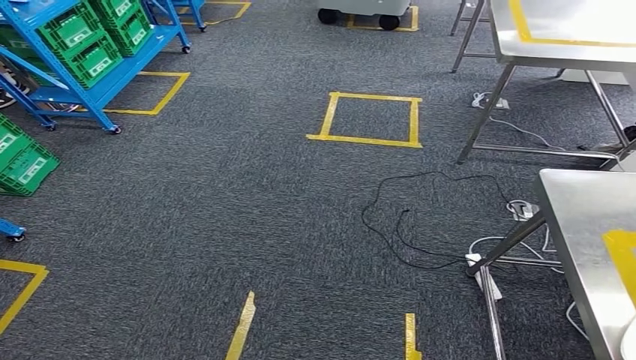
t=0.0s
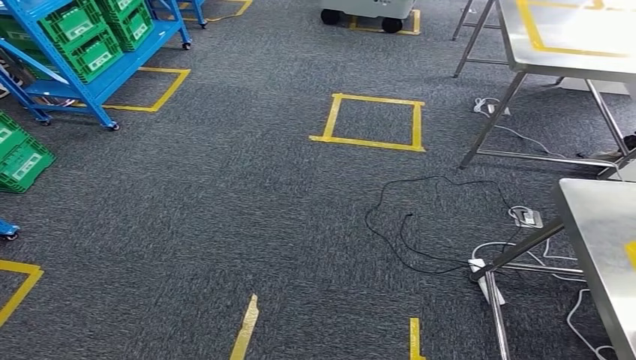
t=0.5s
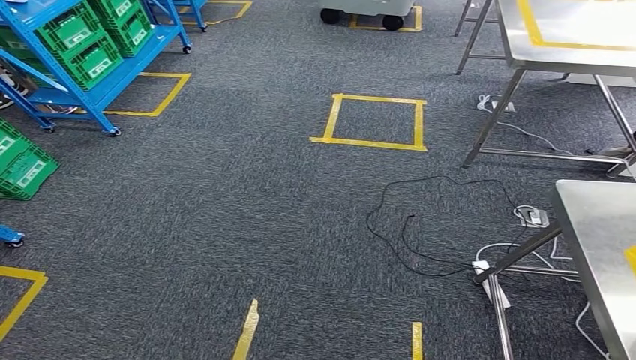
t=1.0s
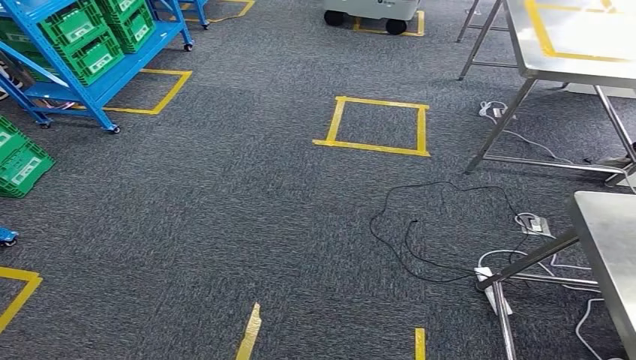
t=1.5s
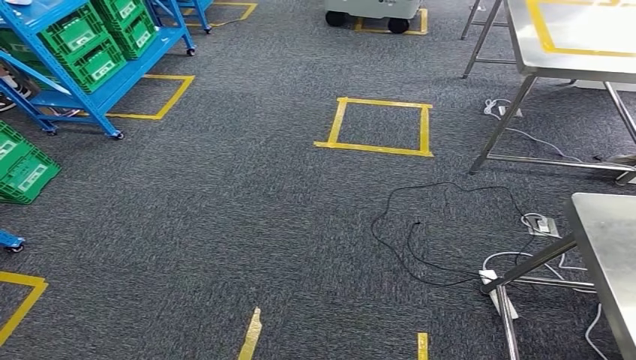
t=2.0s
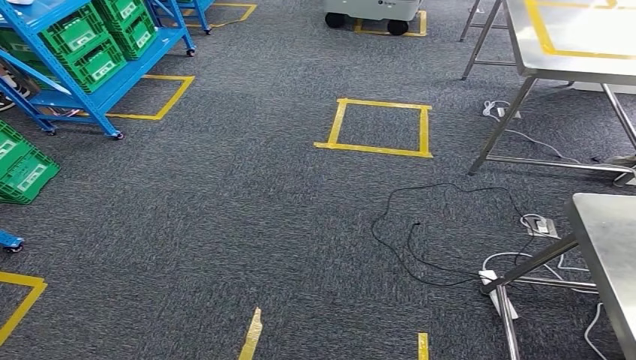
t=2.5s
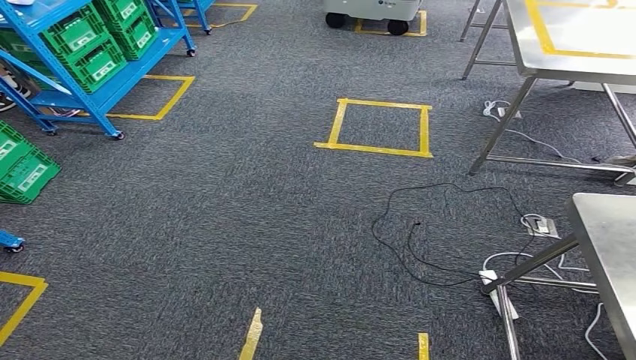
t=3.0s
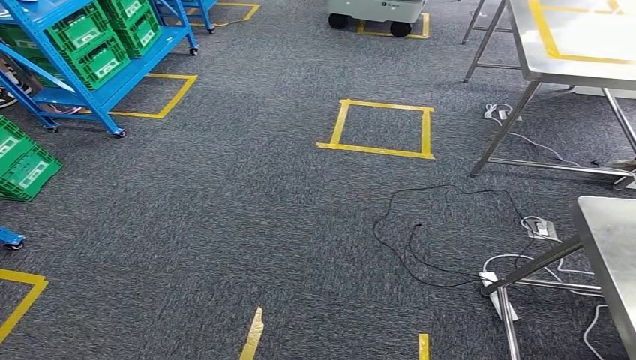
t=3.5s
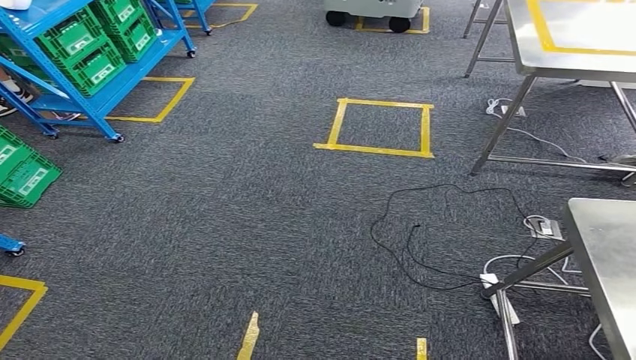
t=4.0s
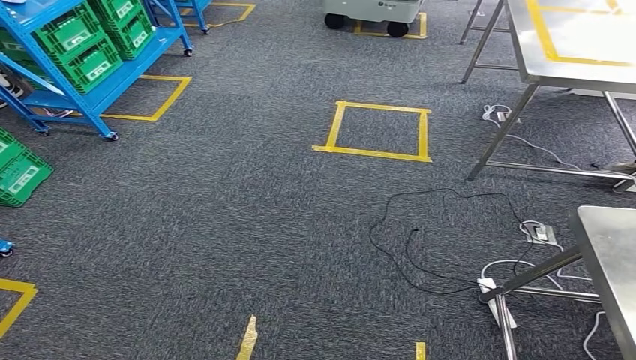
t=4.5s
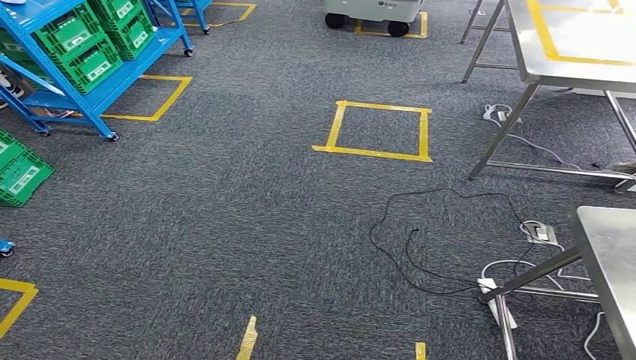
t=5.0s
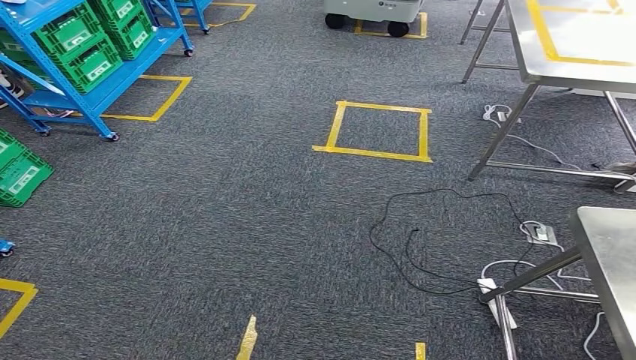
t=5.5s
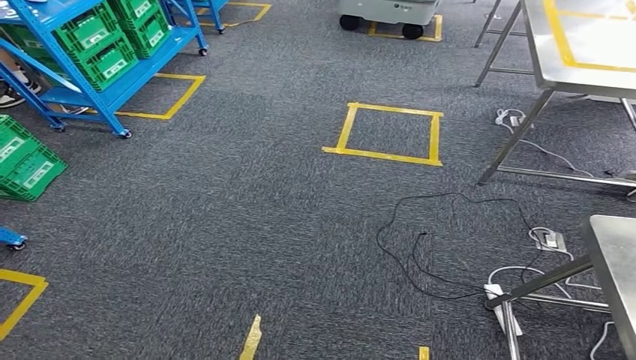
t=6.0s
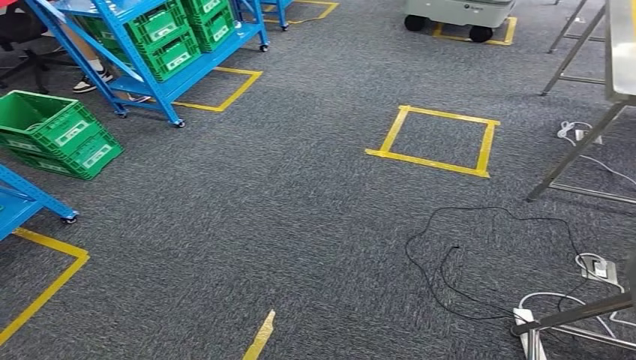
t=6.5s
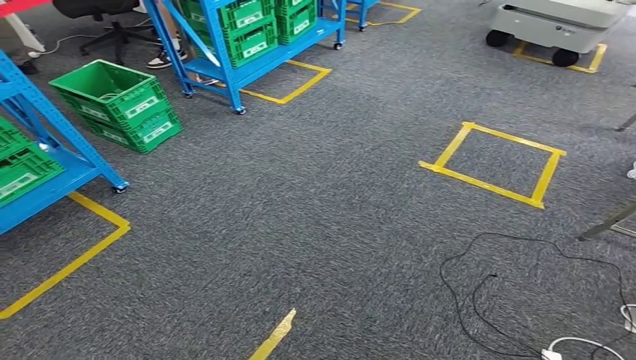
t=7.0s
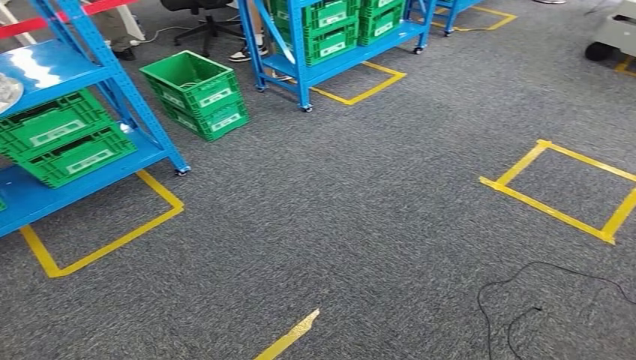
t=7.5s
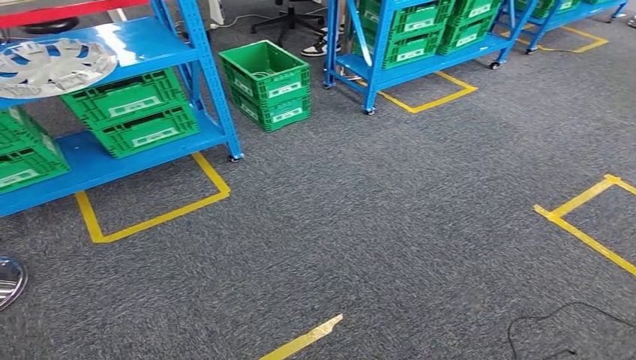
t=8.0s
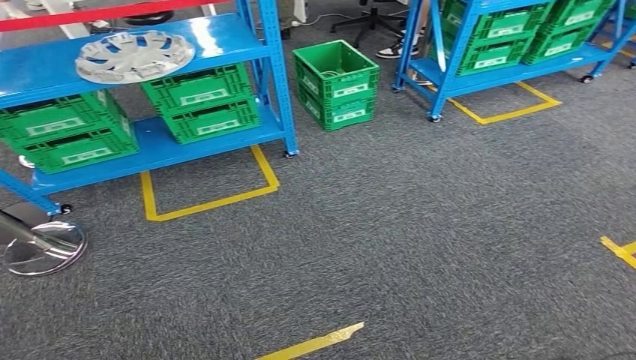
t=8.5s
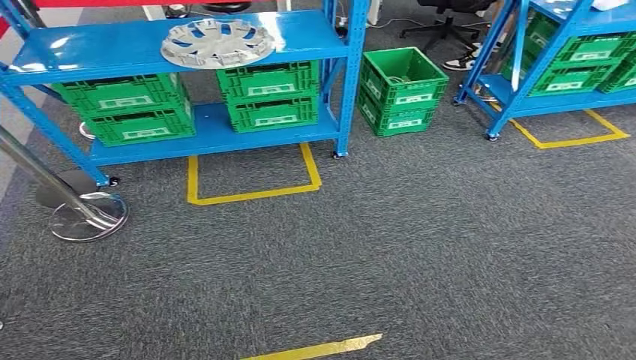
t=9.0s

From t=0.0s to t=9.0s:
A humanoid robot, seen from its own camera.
From t=2.0s to t=4.5s: Both hands stay about where they are.

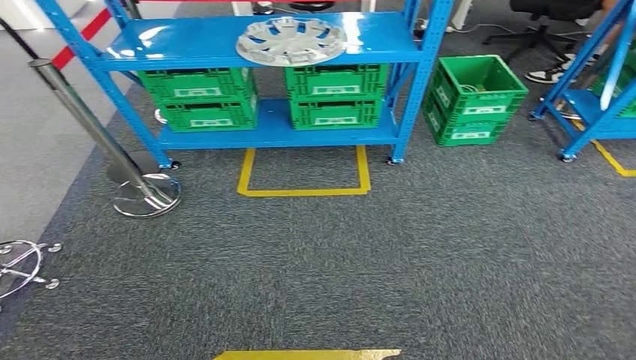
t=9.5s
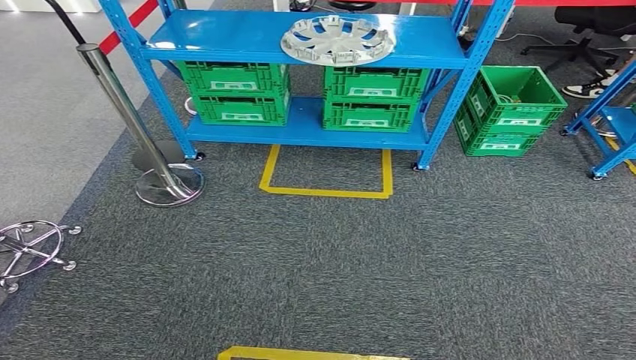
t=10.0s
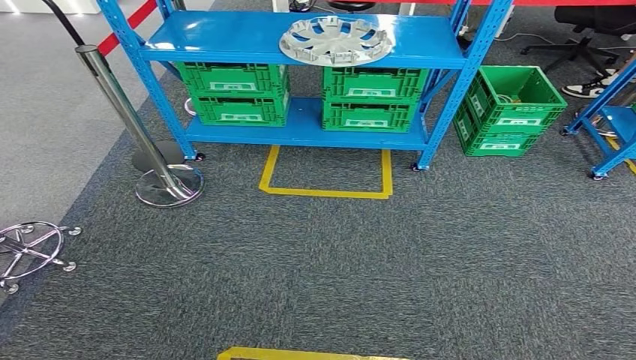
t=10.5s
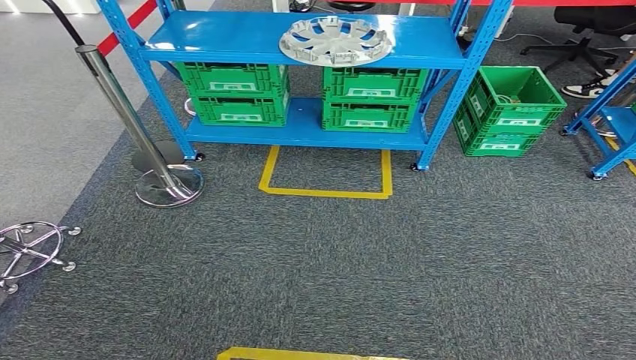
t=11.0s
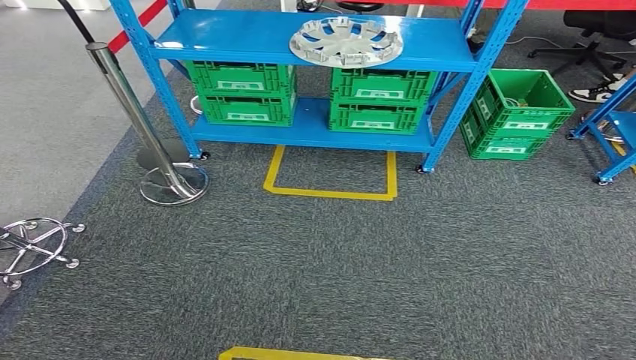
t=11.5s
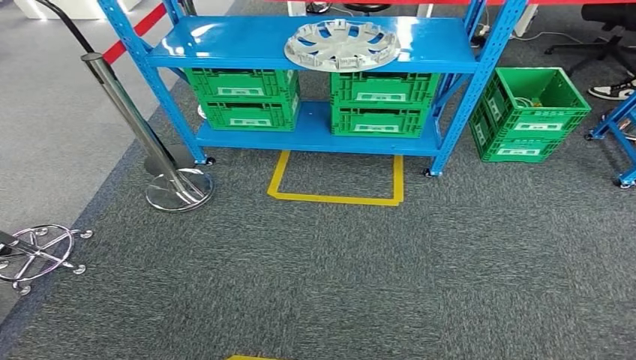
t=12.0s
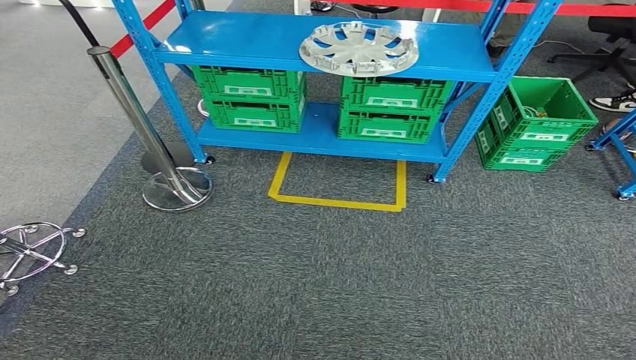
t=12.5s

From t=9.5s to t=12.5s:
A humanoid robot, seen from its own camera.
Step, from t=9.5s to t=12.5s: Move to the initial position at the workbench.
